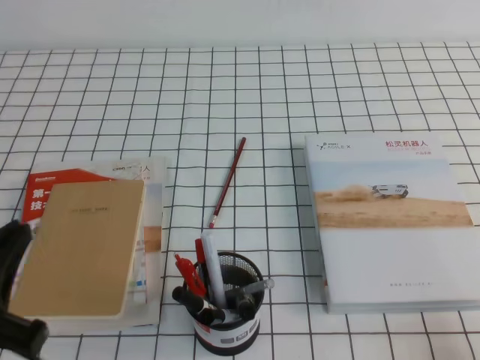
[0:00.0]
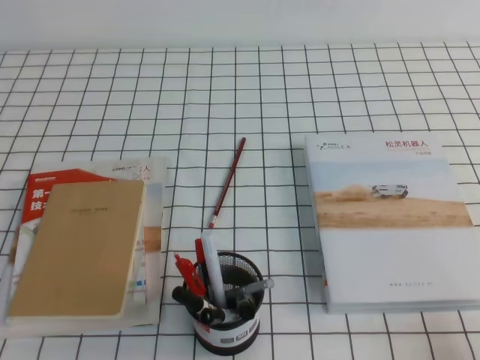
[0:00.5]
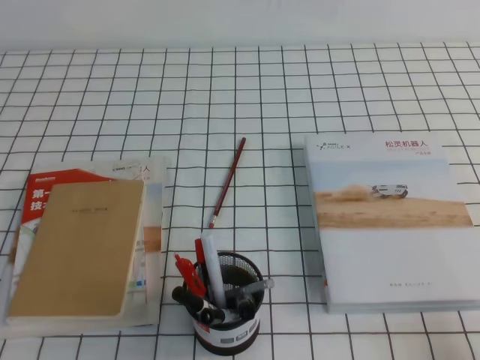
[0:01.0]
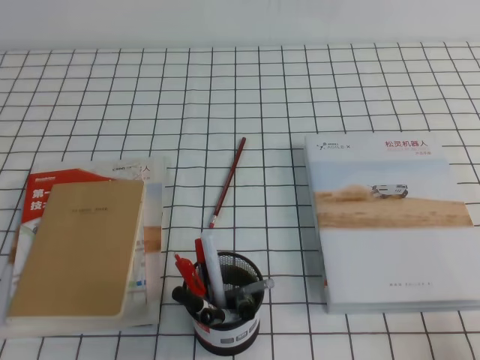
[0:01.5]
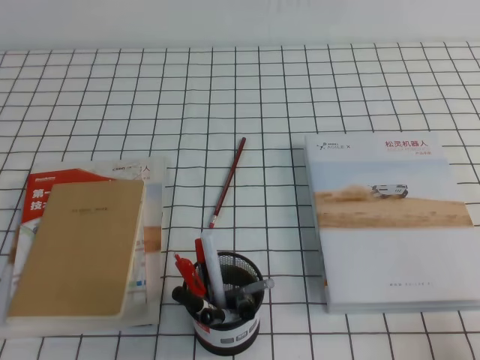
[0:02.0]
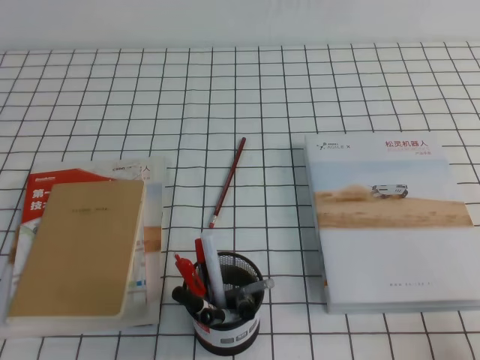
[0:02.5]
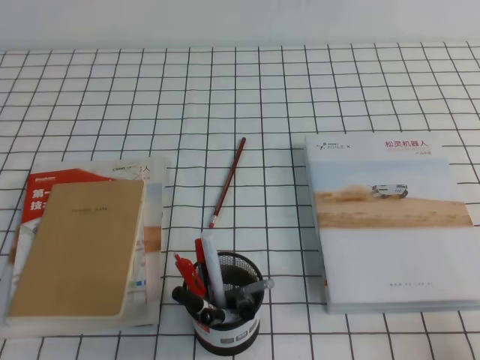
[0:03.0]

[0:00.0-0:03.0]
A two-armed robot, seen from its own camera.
Step, 0:00.0 to 0:03.0: Pick up the pen from the pen holder.
0:00.0 to 0:01.5: The left gripper moves downward, approximately 10 cm.
0:01.5 to 0:03.0: Both grippers stay about where they are.

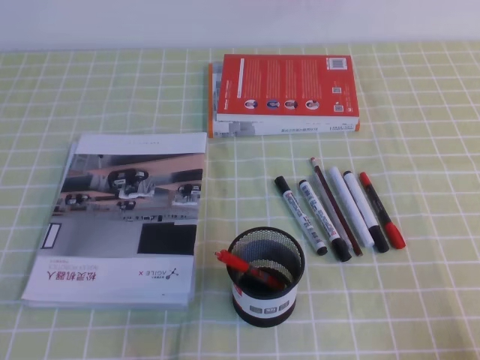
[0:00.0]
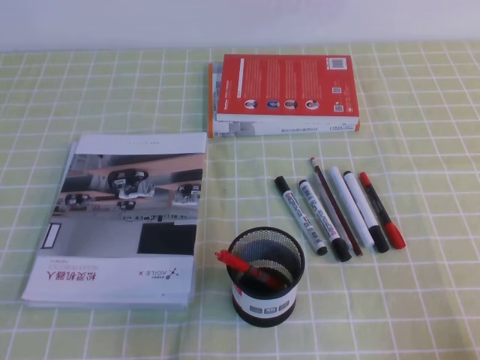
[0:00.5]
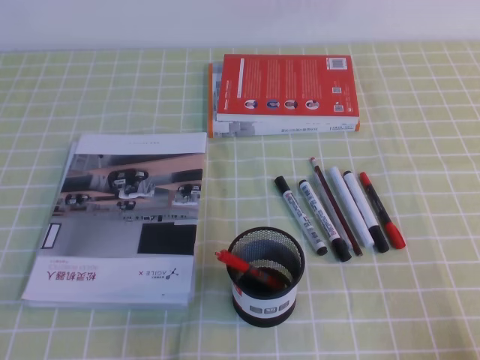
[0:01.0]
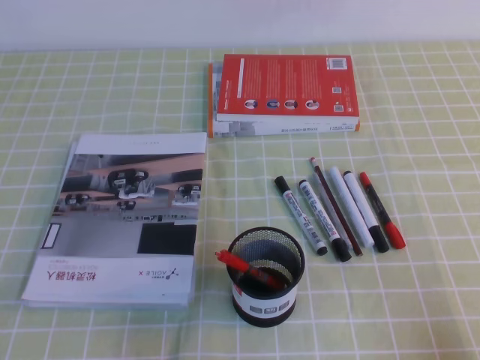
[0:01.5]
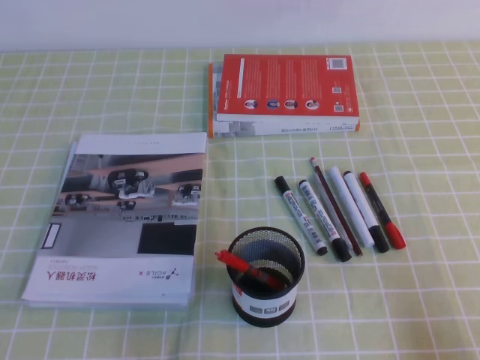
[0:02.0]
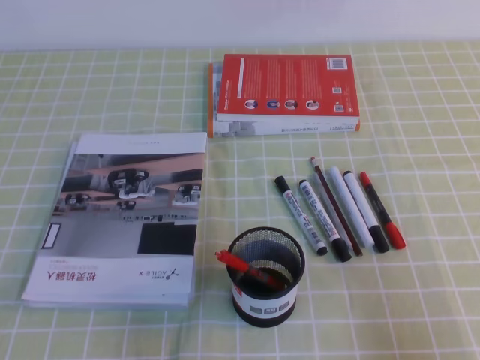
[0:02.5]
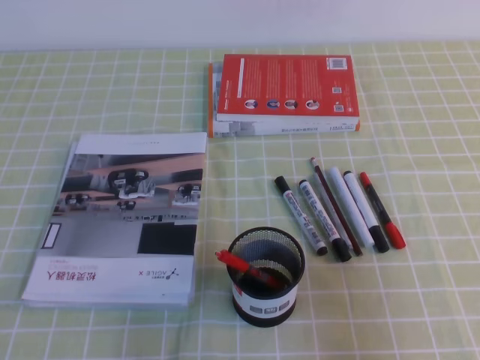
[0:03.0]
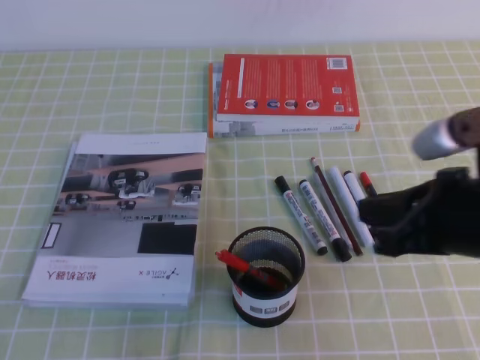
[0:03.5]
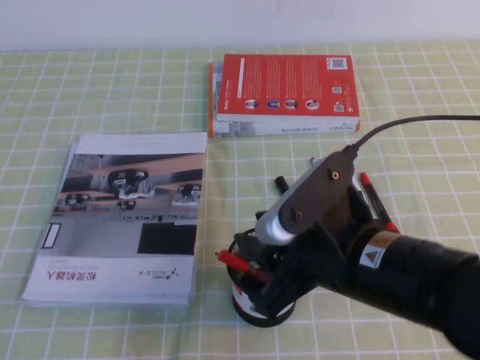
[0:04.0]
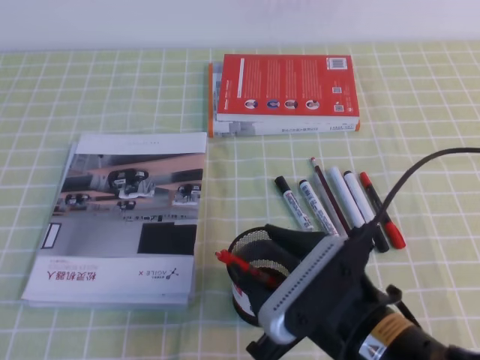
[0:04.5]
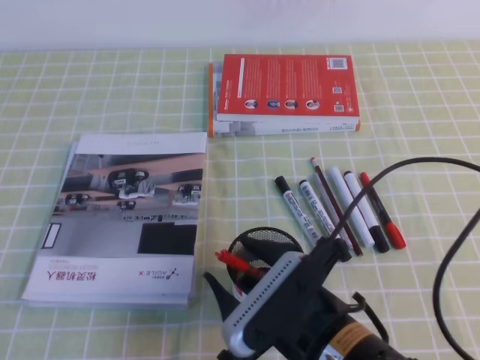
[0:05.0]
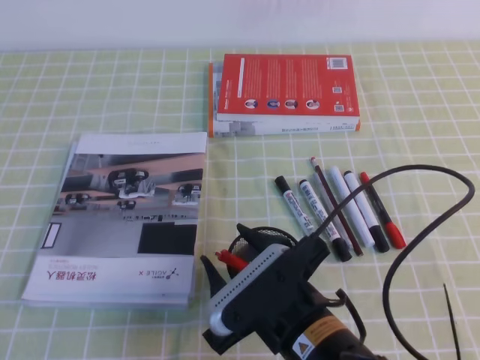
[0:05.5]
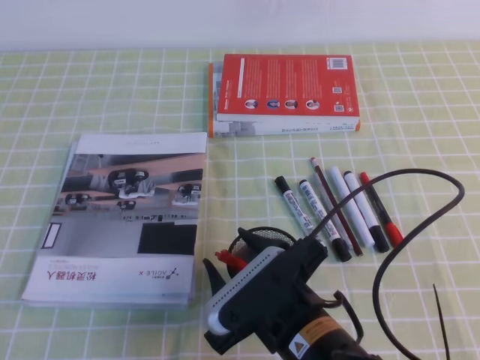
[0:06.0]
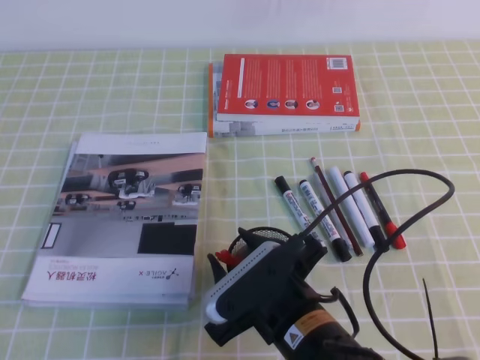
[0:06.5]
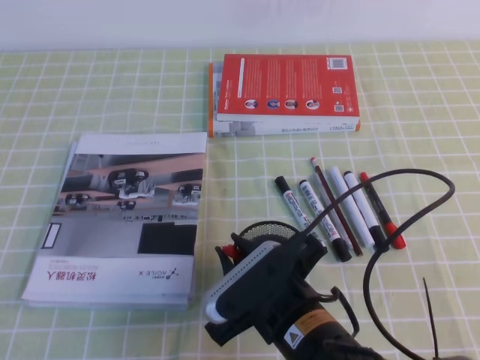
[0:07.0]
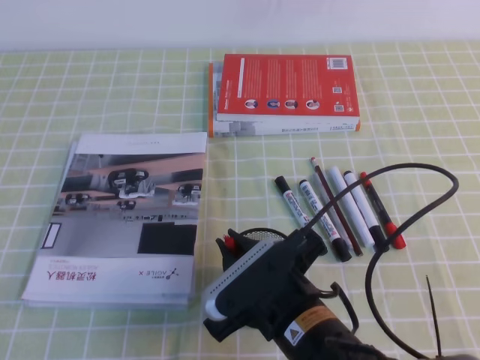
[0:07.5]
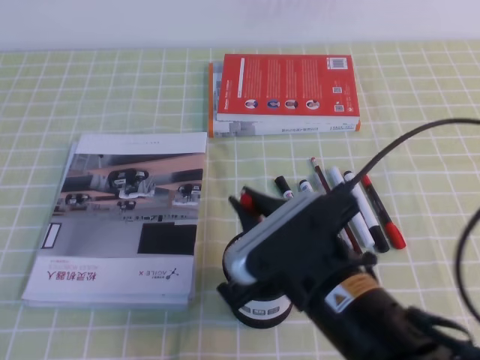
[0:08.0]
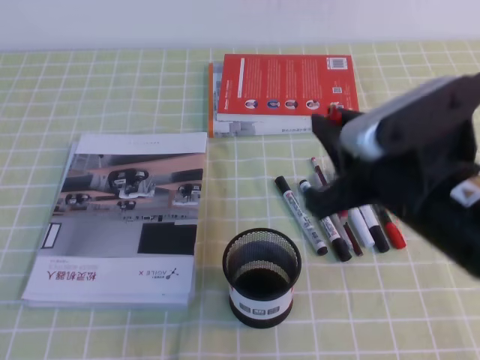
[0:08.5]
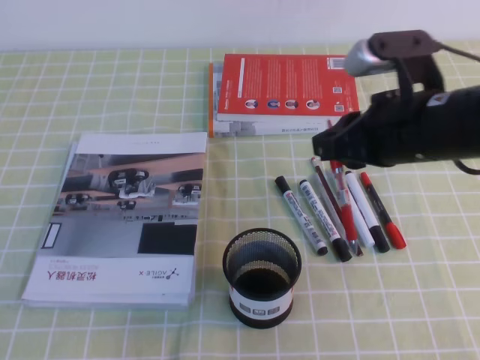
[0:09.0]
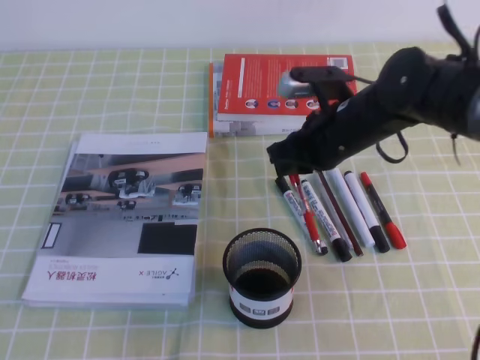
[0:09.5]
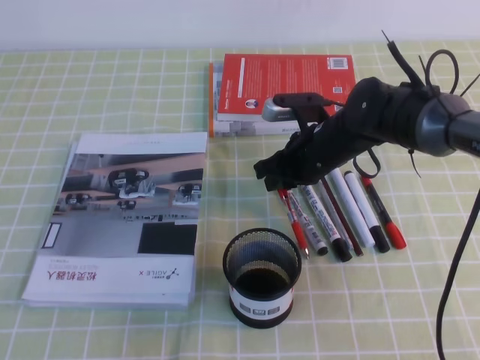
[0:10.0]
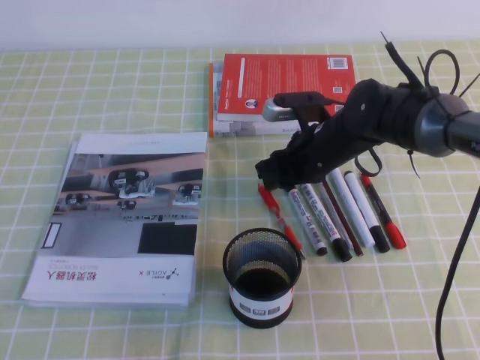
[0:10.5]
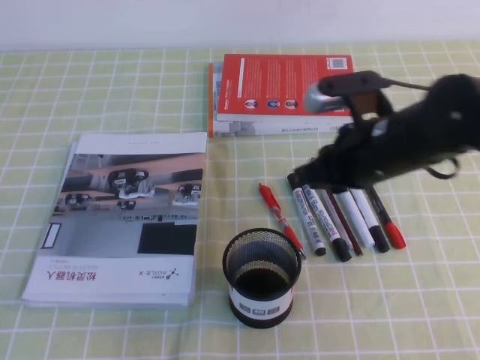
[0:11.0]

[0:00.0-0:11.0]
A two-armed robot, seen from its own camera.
0:02.0 to 0:03.5: The right gripper is displaced forward, upward and to the left by some 20 cm.
0:03.5 to 0:05.5: The right gripper goes roughly 20 cm to the left and downward, and opens.
0:05.5 to 0:07.5: The right gripper closes.
0:07.5 to 0:09.0: The right gripper goes approximately 20 cm upward, to the right and forward.
0:09.0 to 0:11.0: The right gripper shifts roughly 5 cm downward.

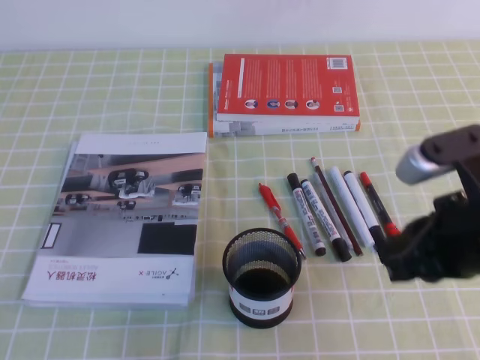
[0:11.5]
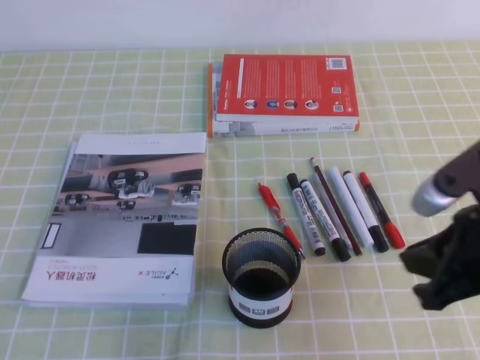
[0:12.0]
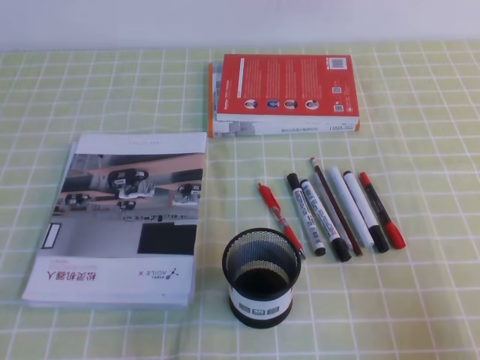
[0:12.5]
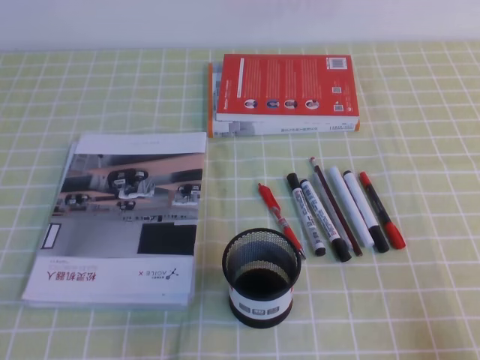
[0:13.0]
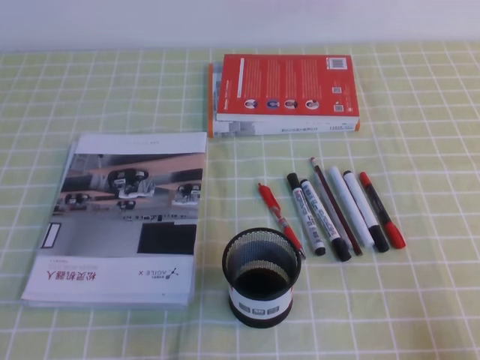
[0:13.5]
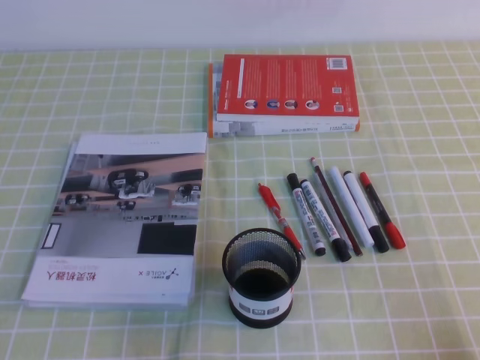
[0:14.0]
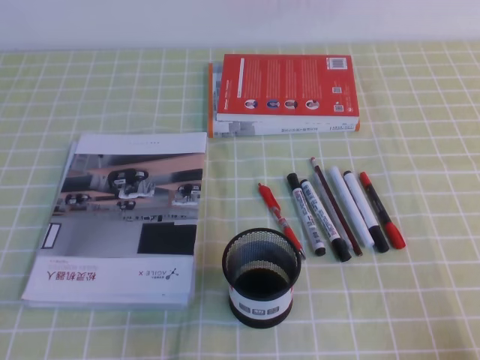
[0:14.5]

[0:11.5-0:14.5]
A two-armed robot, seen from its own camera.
Step, 0:11.5 to 0:14.5: Pick up the pen from the pen holder.
0:11.5 to 0:13.0: The right gripper moves backward, to the right and downward, some 20 cm.
